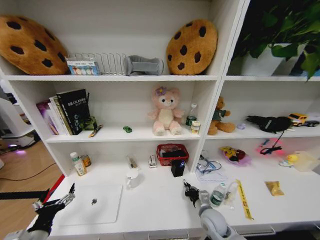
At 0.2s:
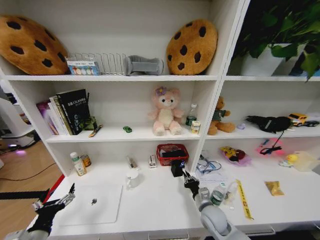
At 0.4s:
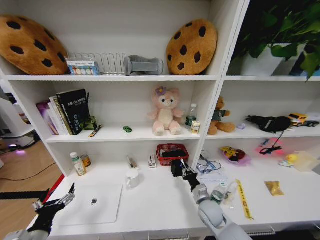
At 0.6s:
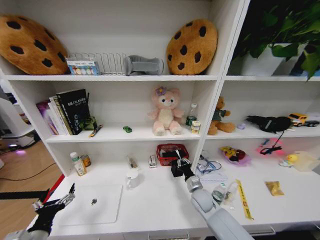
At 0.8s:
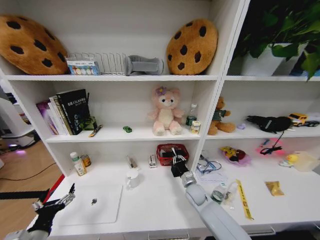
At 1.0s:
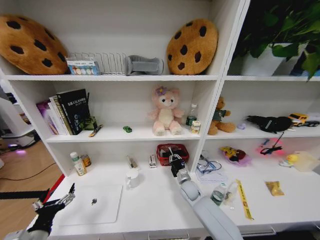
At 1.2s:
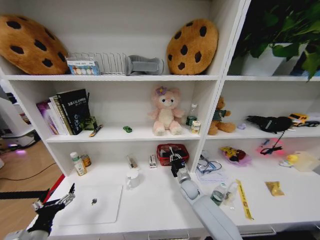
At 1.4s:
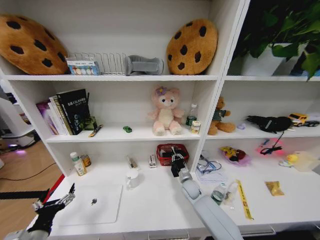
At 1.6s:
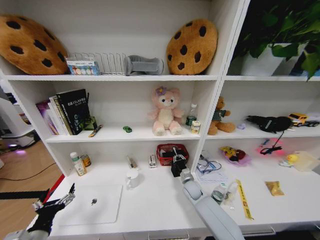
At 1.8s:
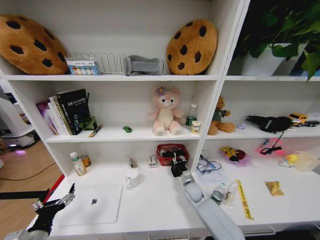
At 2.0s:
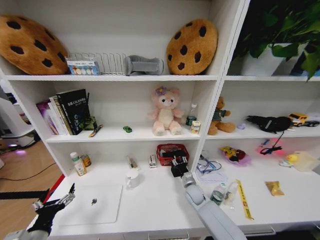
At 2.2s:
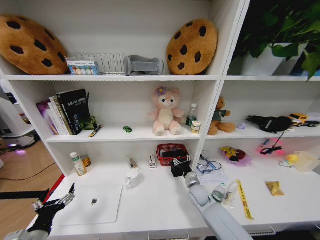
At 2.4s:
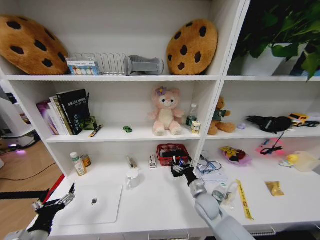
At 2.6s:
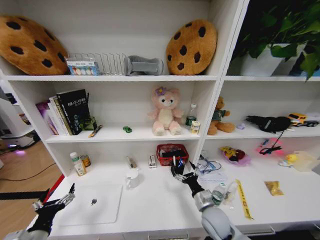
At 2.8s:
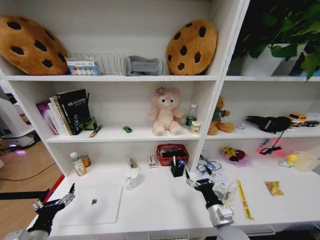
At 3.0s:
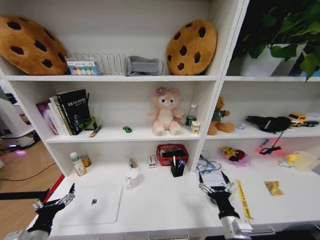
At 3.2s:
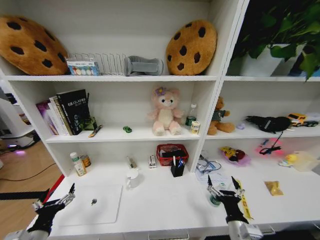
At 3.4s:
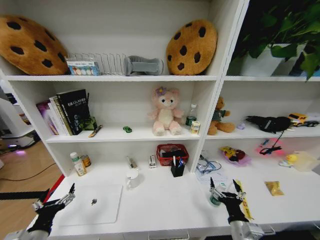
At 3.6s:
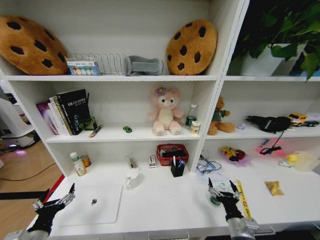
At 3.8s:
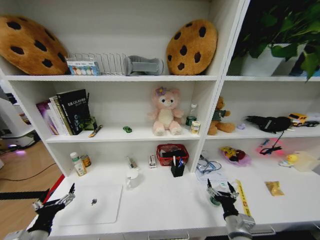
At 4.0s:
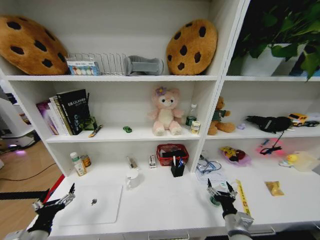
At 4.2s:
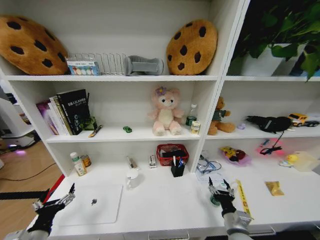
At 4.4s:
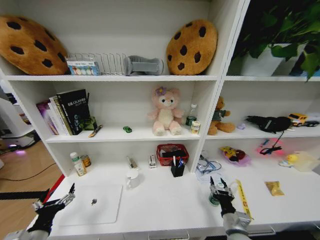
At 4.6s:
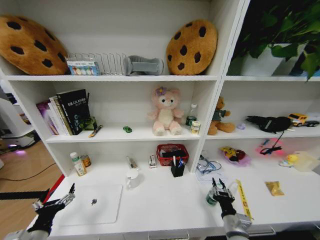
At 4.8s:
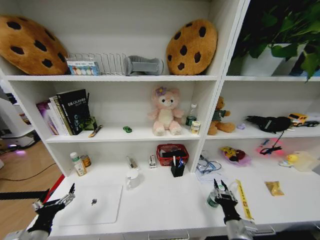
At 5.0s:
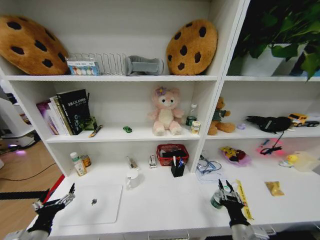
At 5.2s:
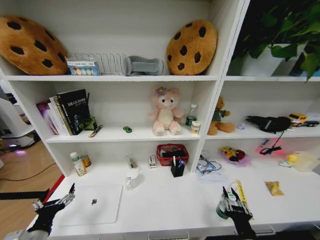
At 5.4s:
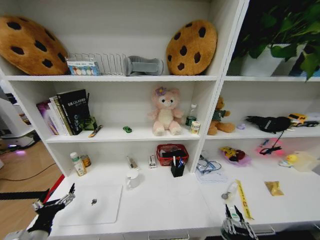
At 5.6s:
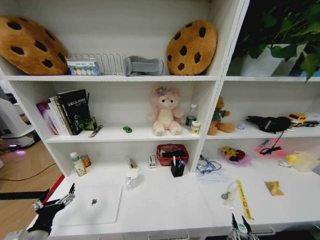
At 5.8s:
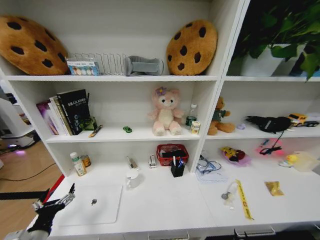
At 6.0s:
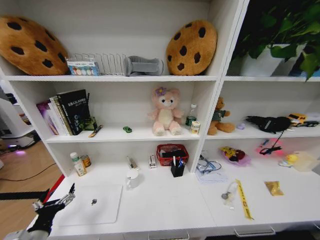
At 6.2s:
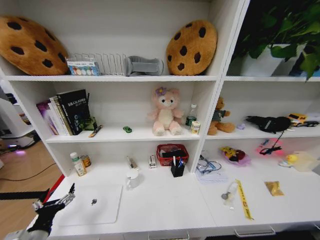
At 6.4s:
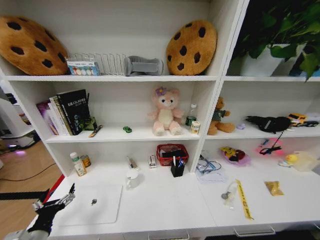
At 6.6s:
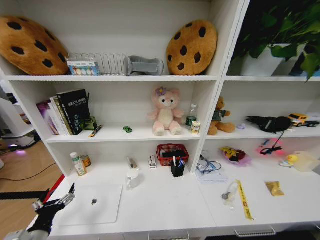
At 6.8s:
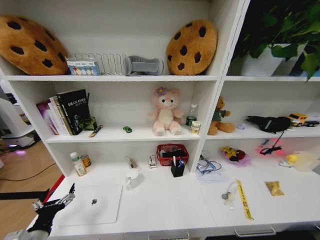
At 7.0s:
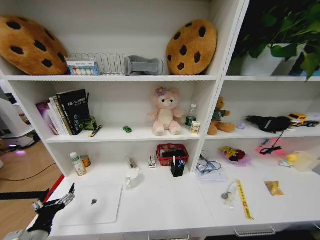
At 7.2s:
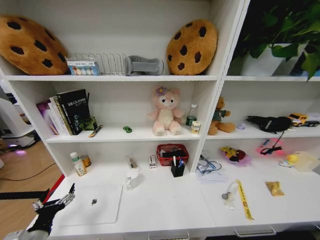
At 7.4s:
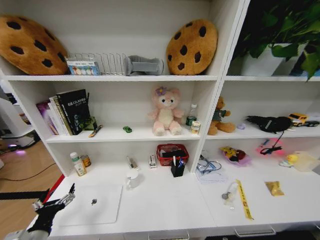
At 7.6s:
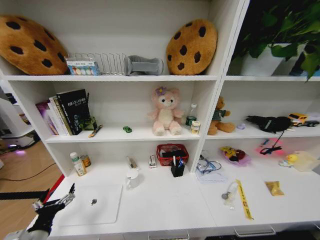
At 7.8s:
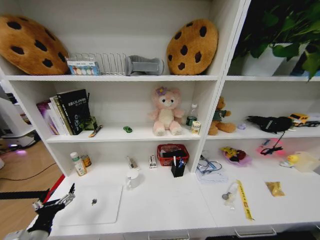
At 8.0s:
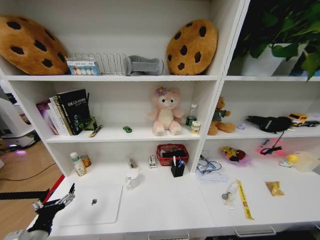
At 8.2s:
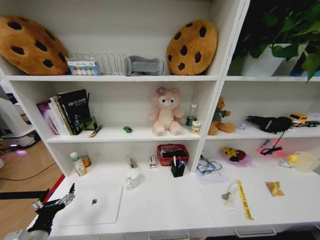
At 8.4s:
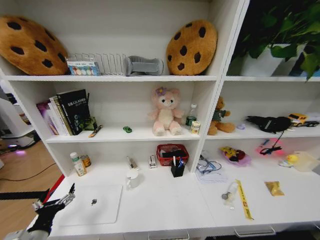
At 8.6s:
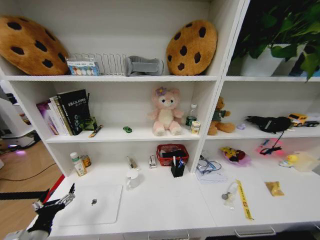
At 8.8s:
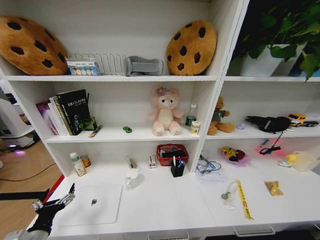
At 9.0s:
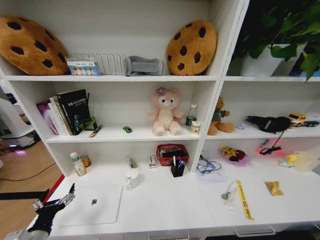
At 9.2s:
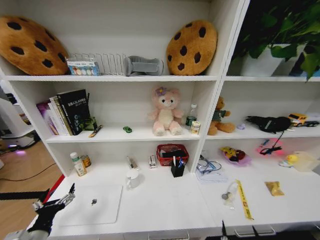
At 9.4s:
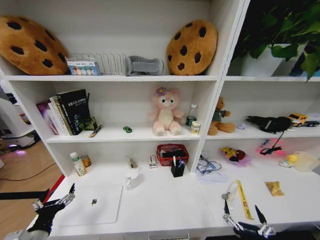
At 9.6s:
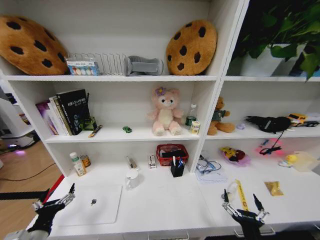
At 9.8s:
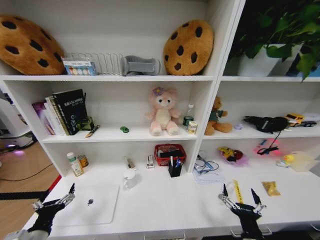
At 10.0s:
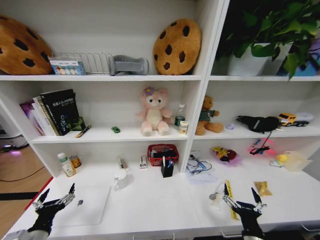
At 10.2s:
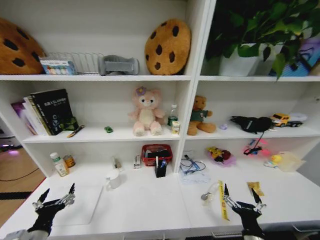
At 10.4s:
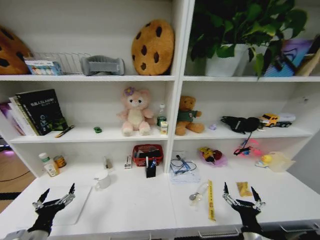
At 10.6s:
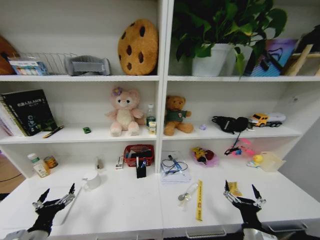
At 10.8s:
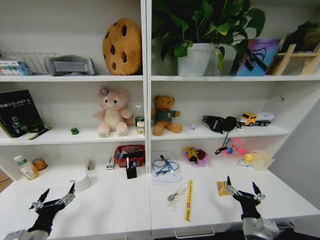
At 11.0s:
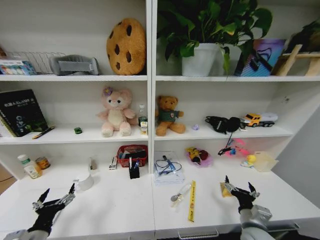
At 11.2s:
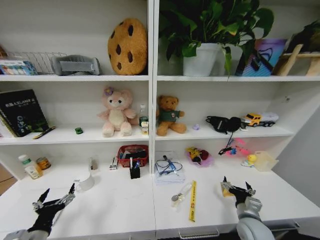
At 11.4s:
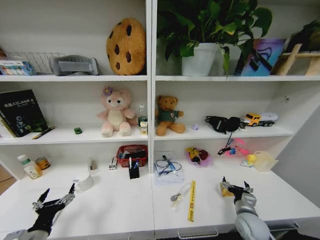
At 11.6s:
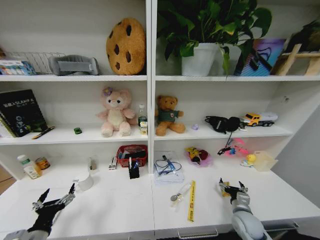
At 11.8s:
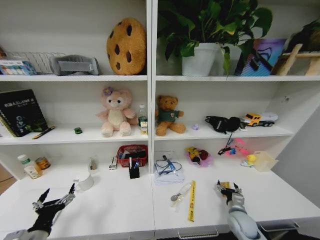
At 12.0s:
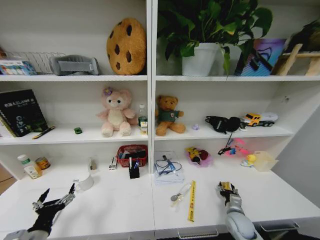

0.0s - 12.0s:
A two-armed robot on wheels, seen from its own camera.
Task of the whole recording: Organize the objects on the table.
0.0s - 1.6s: The right gripper shifts about 15 cm forward.
1.6s - 3.0s: The right gripper heads backward and upward, covering roughly 30 cm, and opens.
3.0s - 4.4s: The right gripper heads downward, covering roughly 5 cm, and closes.
4.4s - 6.0s: The right gripper shifts about 25 cm backward.
9.0s - 10.4s: The right gripper is displaced forward and upward by approximately 20 cm.
10.4s - 12.0s: The right gripper goes roughly 20 cm forward, downward and to the right, and closes its fingers.

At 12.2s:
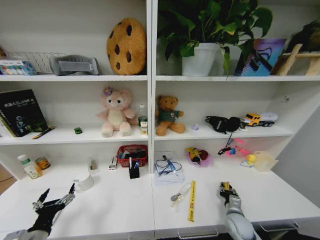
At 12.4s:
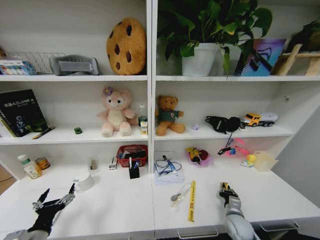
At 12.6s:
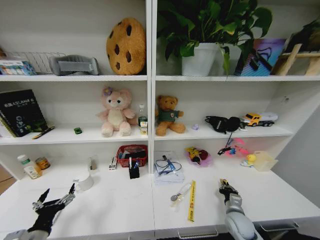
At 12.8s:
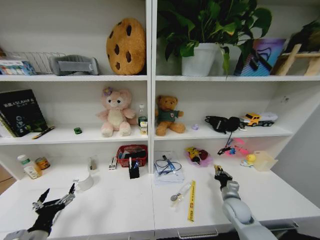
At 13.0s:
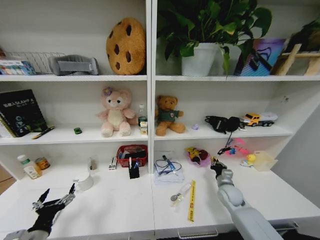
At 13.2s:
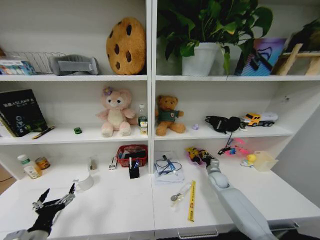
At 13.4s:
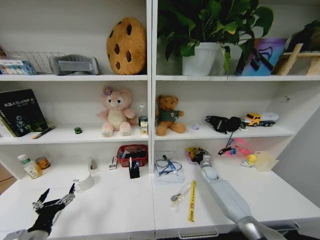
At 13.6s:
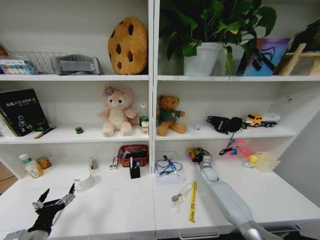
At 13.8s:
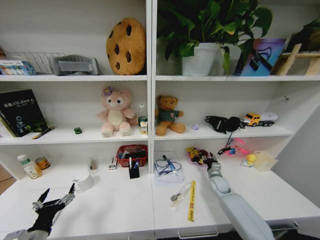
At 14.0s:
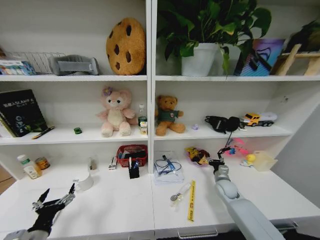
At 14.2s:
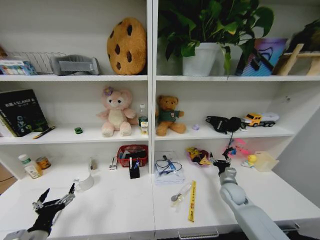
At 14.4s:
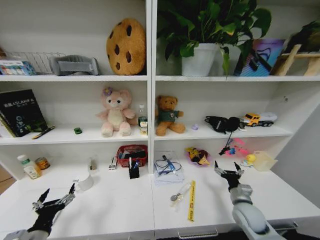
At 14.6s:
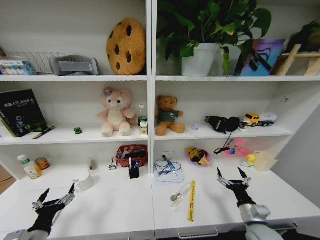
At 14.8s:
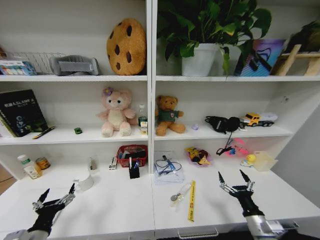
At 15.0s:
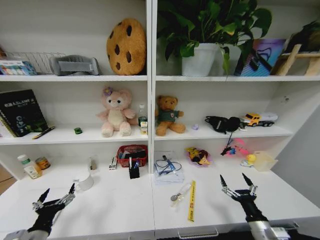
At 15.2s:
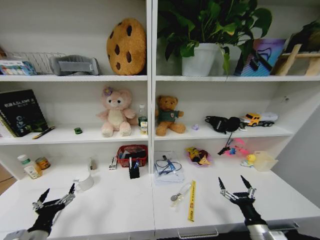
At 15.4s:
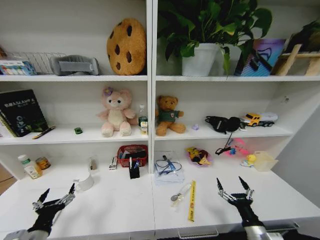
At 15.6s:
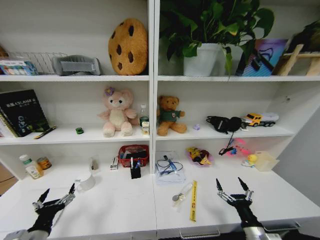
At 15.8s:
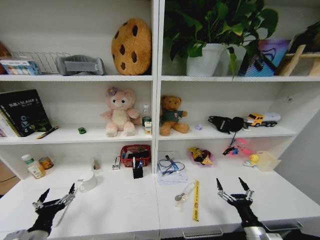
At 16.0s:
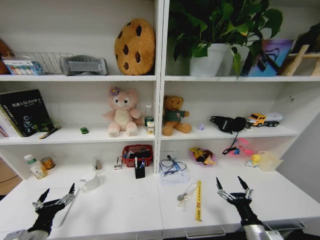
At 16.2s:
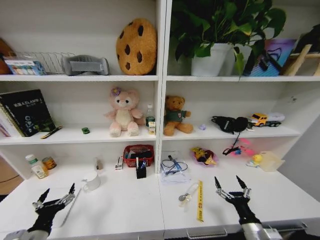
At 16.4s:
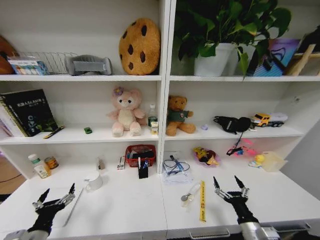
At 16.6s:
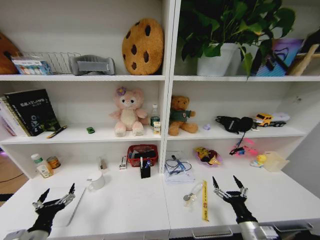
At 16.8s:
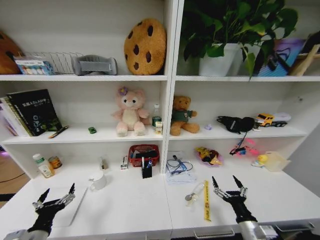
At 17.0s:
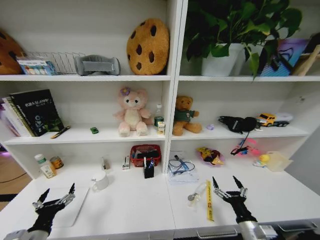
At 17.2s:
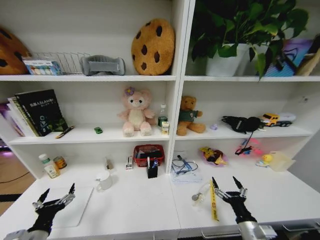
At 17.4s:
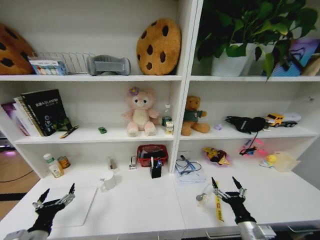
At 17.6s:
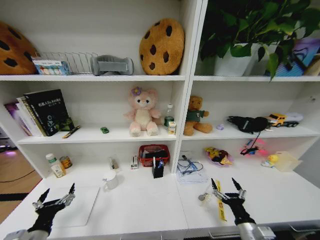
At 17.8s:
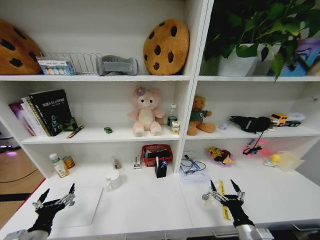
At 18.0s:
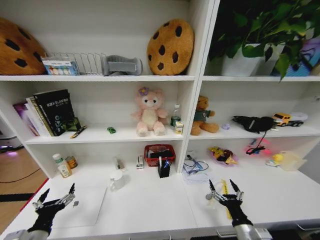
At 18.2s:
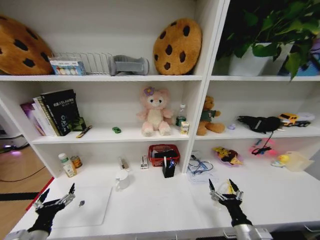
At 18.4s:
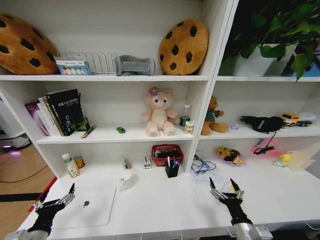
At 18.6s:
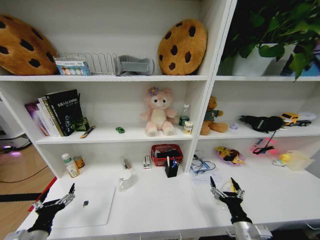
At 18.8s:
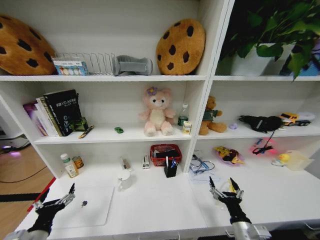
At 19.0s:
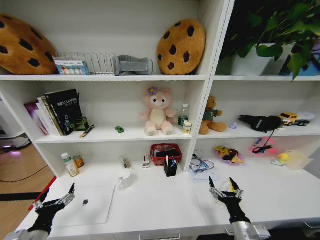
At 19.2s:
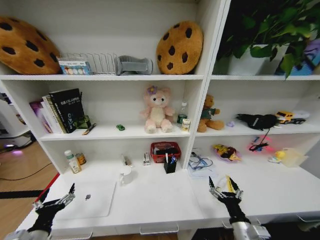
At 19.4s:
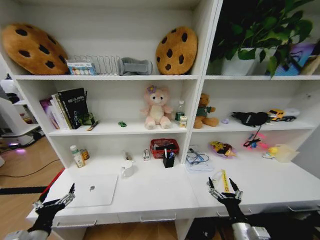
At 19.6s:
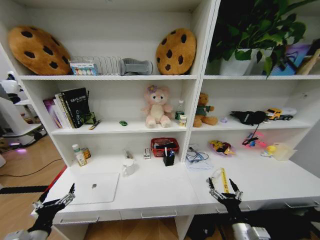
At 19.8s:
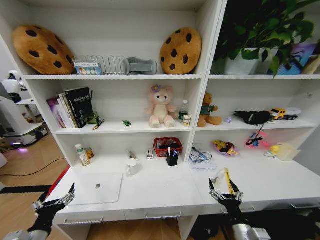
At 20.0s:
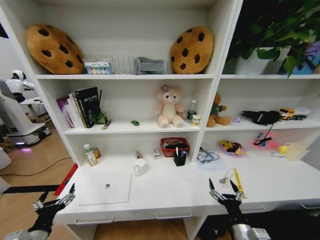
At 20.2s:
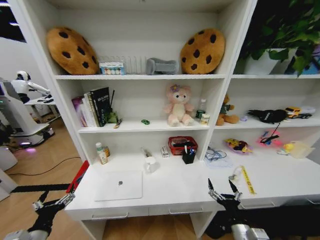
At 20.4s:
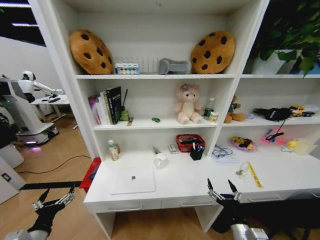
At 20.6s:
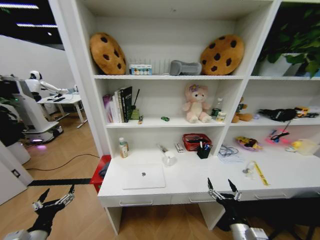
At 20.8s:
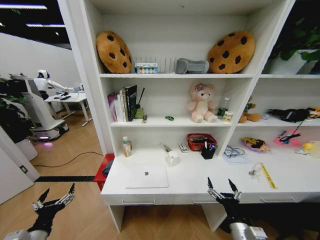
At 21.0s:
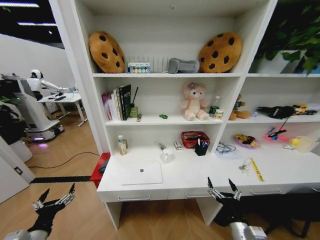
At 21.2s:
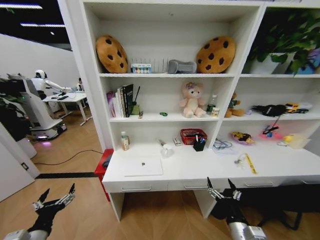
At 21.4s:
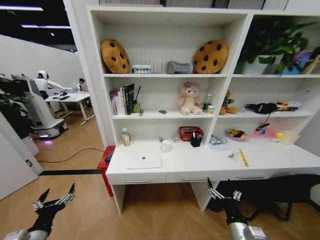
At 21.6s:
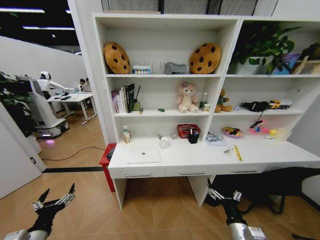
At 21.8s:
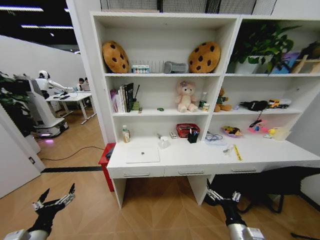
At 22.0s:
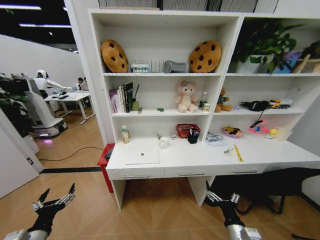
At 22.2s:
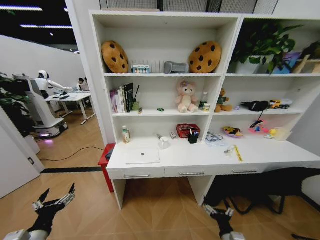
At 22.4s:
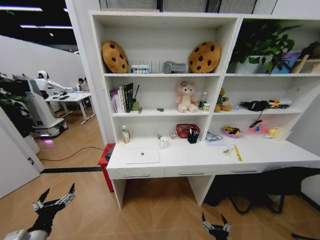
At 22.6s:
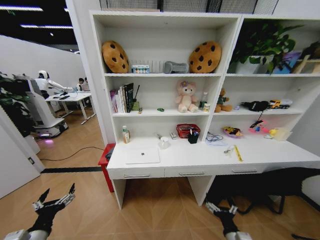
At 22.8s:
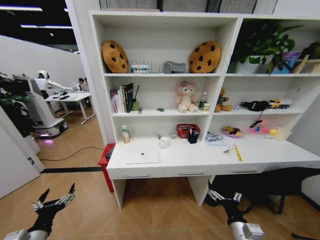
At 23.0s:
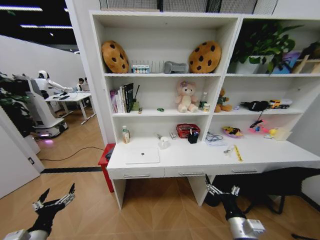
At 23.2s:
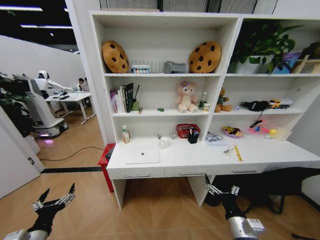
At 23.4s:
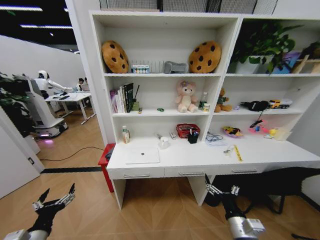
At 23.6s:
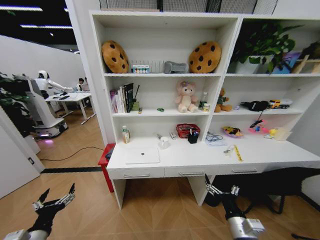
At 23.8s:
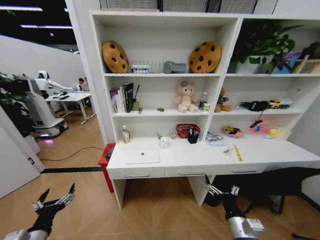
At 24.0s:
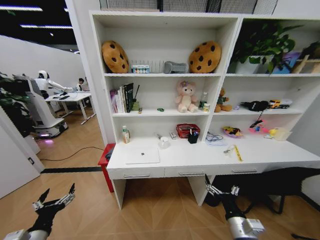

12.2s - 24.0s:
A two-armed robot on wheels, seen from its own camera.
Task of the whole recording: Organize the objects on the table.
12.2s - 13.6s: The right gripper travels forward by about 25 cm.
13.6s - 15.2s: The right gripper heads backward, covering roughly 35 cm, and opens up.
21.0s - 22.6s: The right gripper shifts approximately 10 cm downward.
22.6s - 24.0s: The right gripper moves upward, approximately 10 cm.
